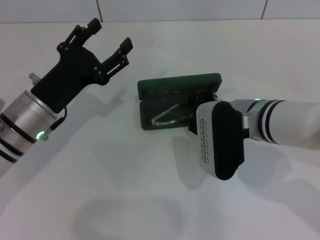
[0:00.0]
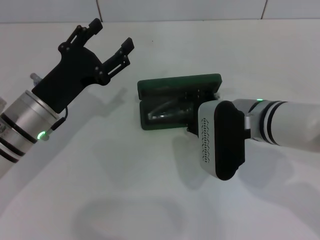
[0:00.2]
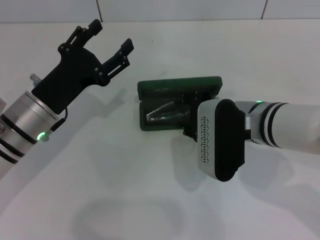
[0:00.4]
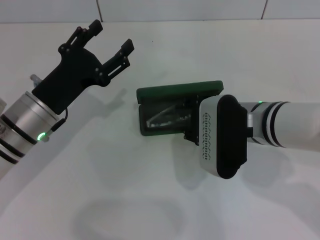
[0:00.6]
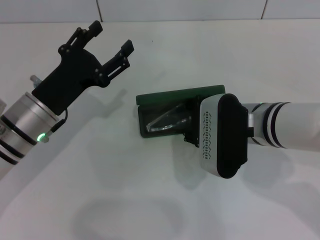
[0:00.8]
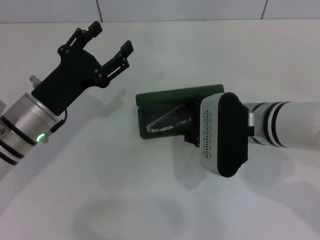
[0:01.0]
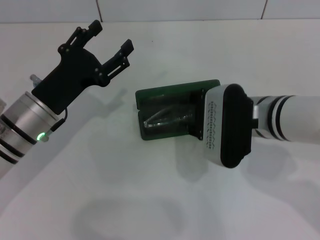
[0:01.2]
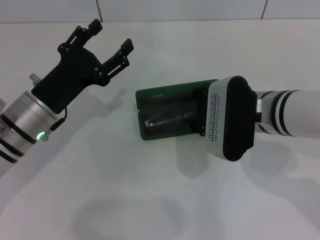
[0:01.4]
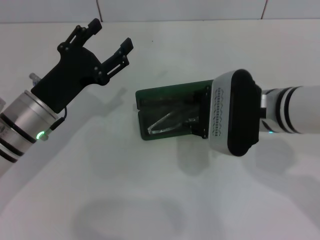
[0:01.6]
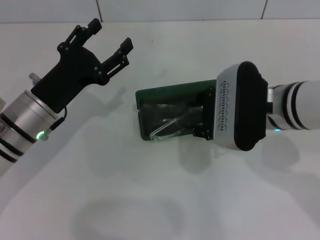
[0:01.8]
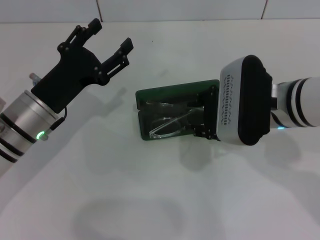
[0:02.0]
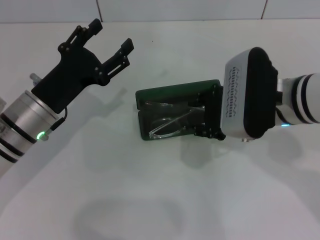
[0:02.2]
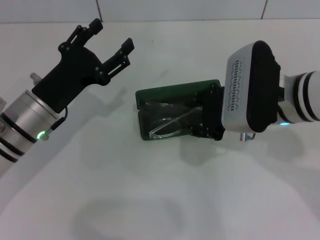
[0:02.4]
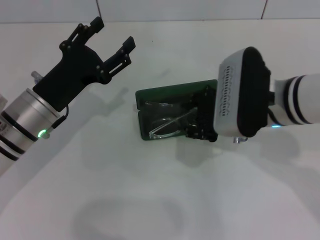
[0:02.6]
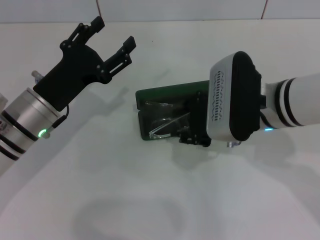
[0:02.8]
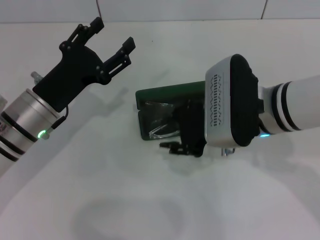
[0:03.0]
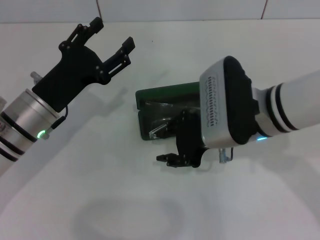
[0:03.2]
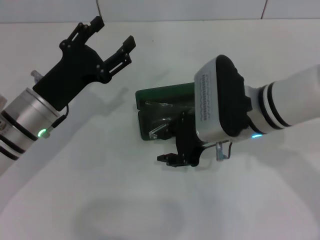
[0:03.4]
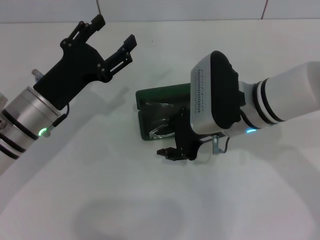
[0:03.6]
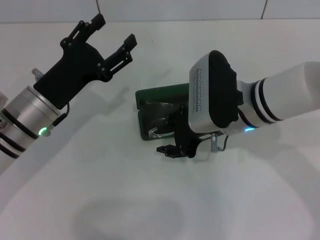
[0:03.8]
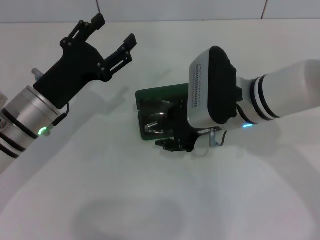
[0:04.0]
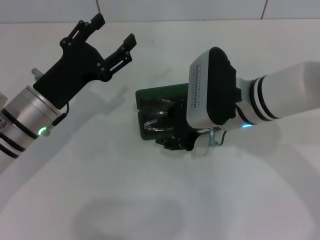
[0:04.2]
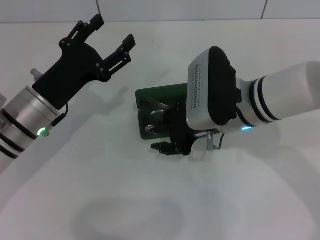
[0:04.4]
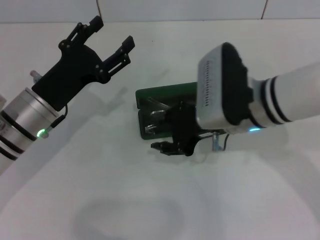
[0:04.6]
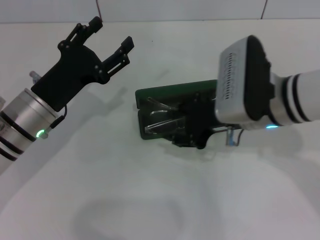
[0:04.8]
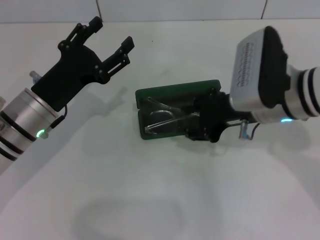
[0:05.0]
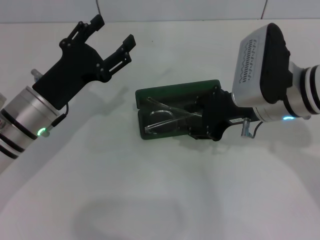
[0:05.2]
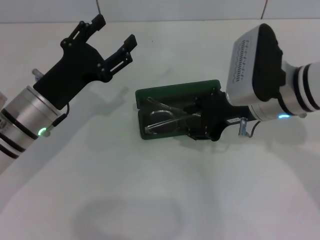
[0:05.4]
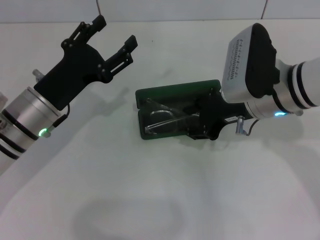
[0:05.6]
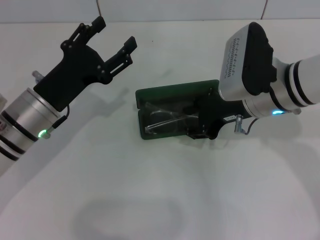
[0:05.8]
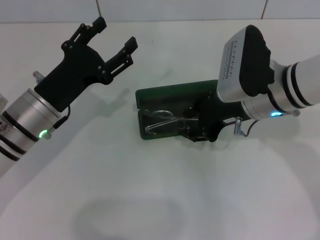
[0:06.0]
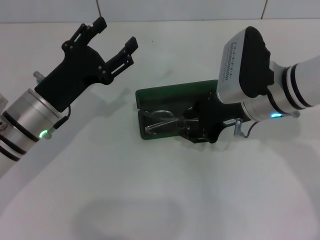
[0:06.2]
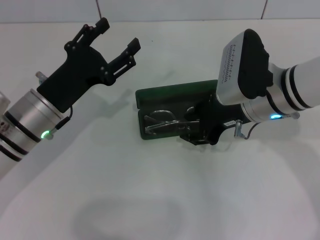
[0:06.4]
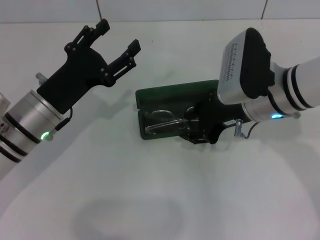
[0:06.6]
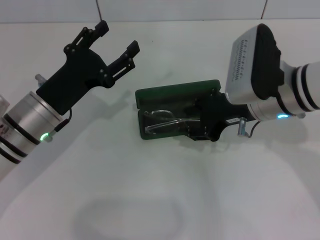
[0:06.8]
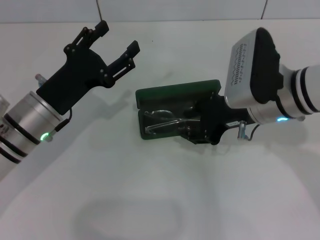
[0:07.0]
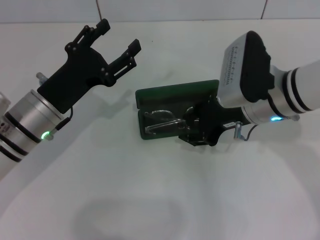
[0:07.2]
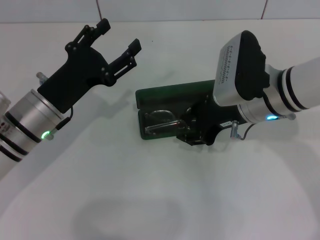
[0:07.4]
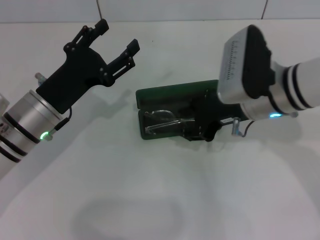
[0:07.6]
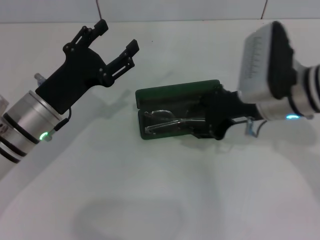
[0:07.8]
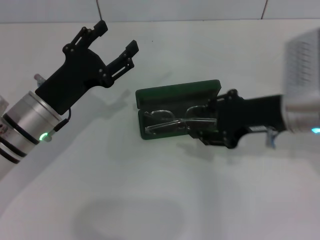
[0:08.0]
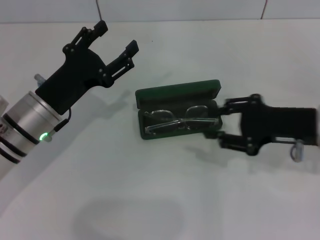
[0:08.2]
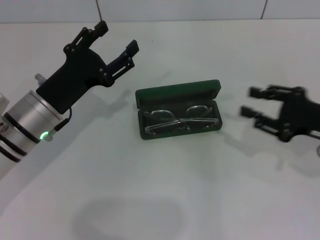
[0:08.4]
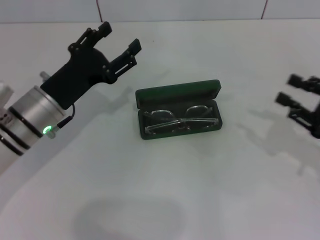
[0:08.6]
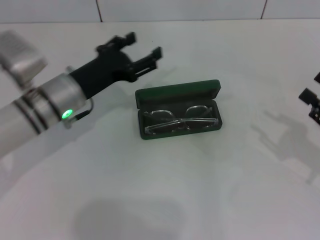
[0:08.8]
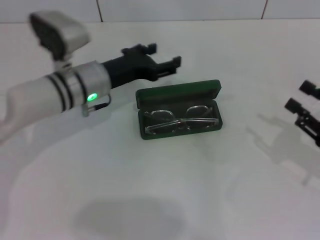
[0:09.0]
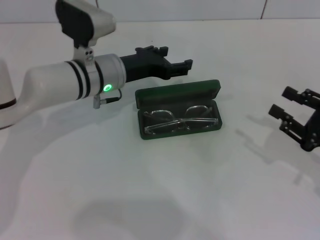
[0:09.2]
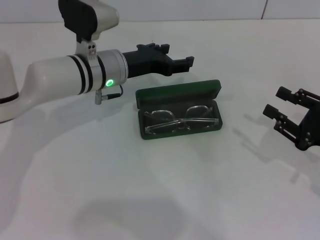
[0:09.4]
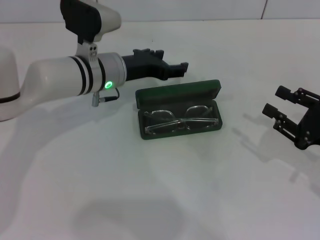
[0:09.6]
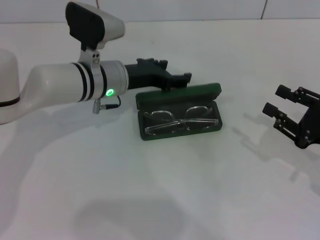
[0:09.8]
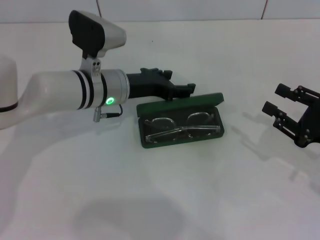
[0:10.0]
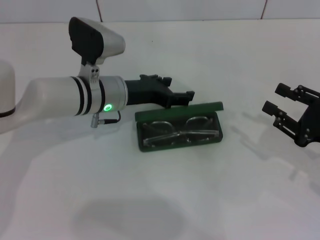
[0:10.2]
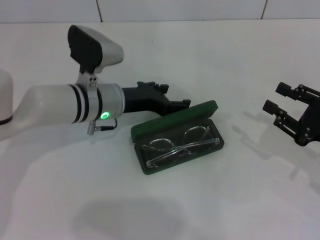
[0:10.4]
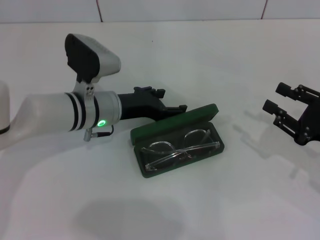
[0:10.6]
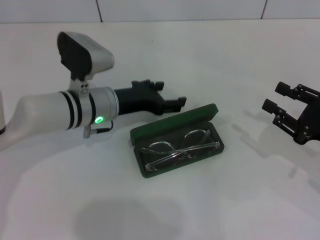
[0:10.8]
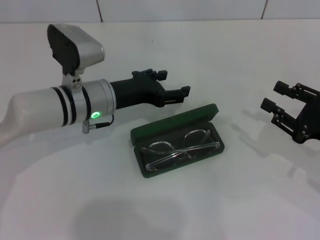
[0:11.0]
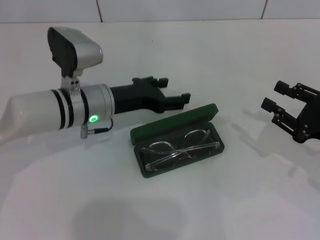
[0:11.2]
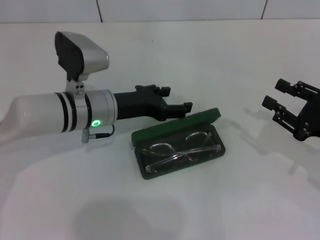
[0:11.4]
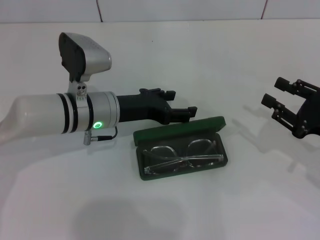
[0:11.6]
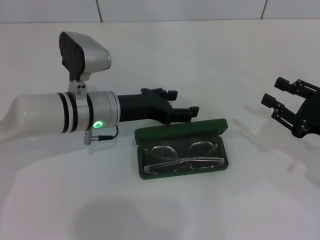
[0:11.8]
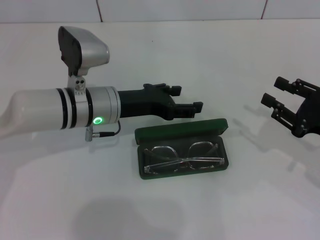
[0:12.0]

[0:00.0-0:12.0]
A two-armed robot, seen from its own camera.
Step, 0:00.0 to 0:07.8: Put the glasses into the case with your right hand.
0:00.0 to 0:01.6: The grippers stay close to where they were, moving slightly.
0:01.6 to 0:03.0: There are only small adjustments of the grippers.
0:03.0 to 0:07.6: The grippers move only a little.
0:07.6 to 0:09.0: The left gripper is displaced forward and to the right by about 10 cm. The right gripper moves to the right and backward, about 20 cm.
0:10.4 to 0:12.0: There are only small adjustments of the grippers.

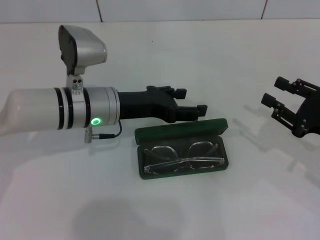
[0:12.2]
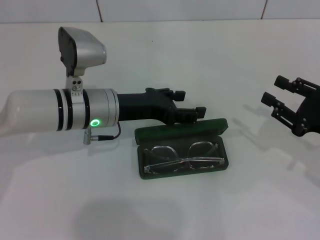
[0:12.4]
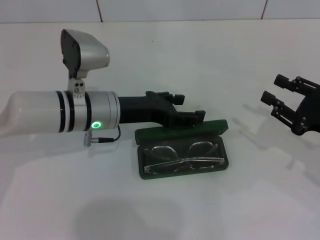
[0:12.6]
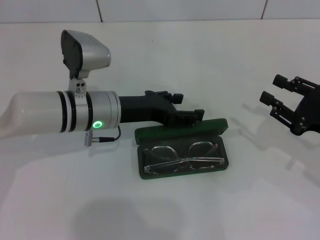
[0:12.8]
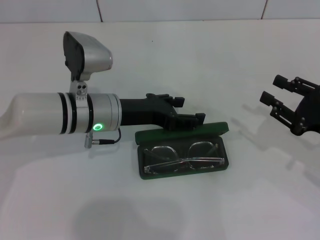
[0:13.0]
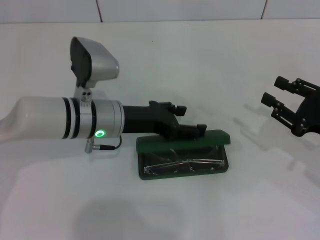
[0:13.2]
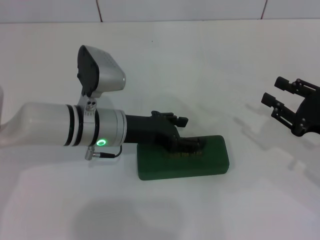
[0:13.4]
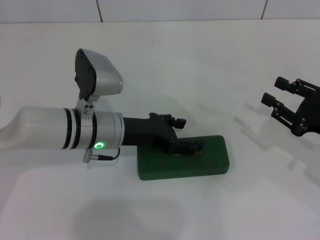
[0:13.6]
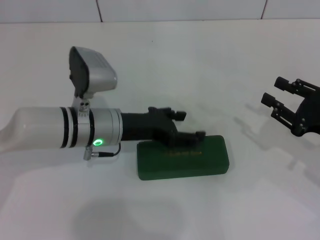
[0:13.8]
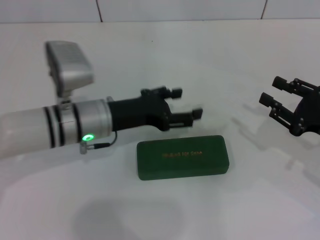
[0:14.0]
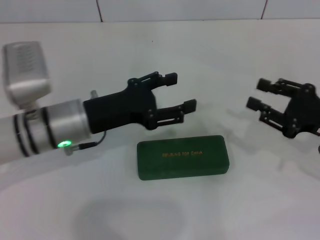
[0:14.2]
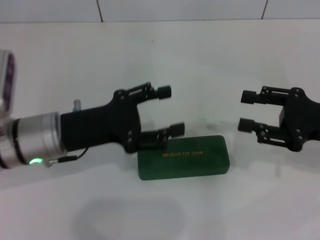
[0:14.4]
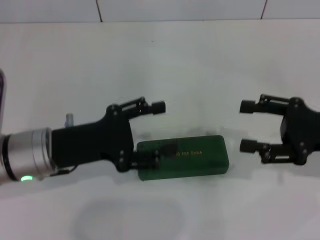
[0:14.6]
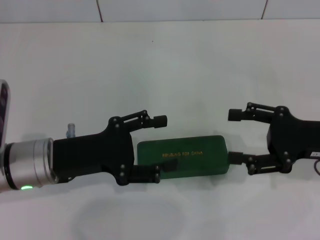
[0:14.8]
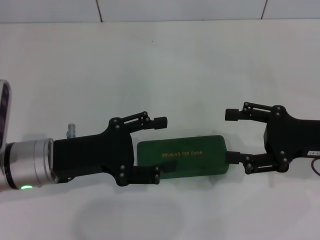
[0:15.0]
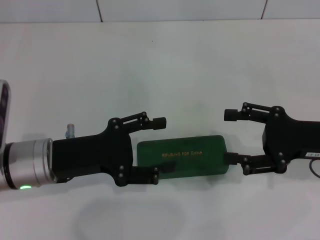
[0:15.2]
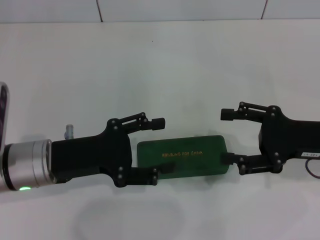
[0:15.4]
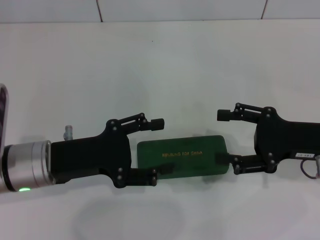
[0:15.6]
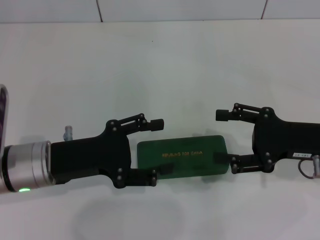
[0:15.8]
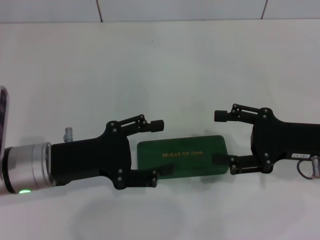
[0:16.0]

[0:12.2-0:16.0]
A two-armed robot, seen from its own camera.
0:12.2 to 0:13.4: The grippers make only small movements.
0:13.4 to 0:14.8: The right gripper moves about 5 cm, and opens up. Meanwhile the left gripper heads to the left and backward, covering roughly 10 cm.
0:14.8 to 0:16.0: The grippers make only small movements.

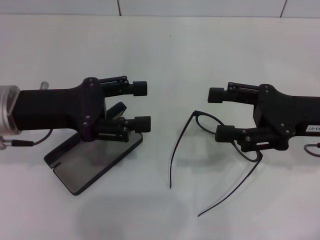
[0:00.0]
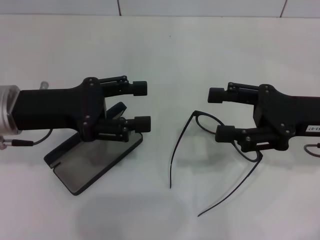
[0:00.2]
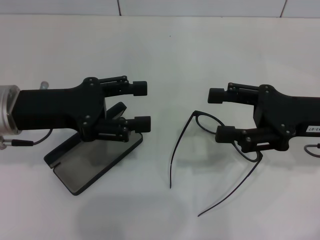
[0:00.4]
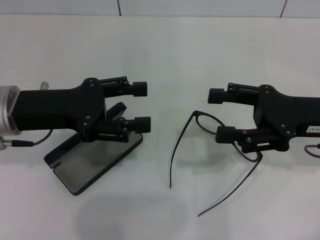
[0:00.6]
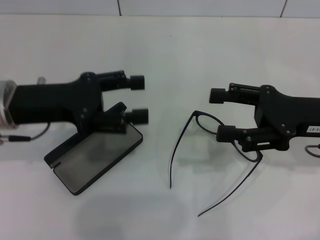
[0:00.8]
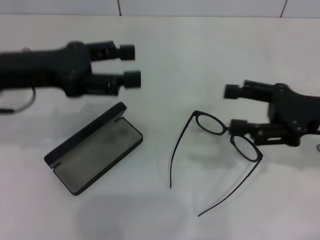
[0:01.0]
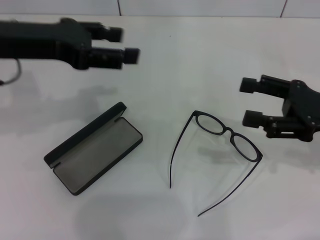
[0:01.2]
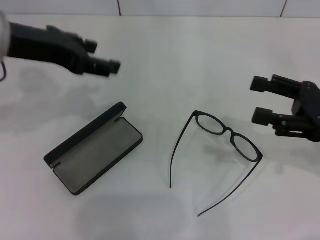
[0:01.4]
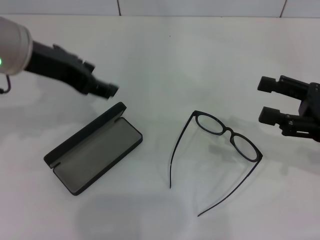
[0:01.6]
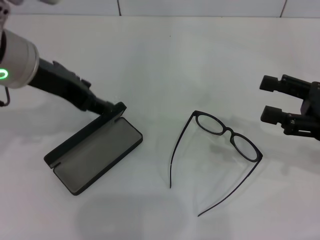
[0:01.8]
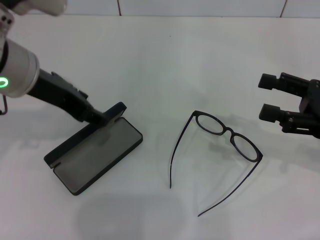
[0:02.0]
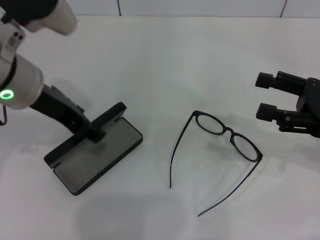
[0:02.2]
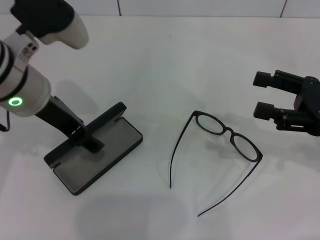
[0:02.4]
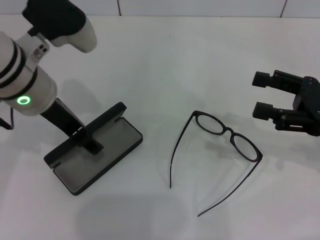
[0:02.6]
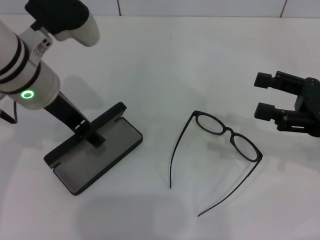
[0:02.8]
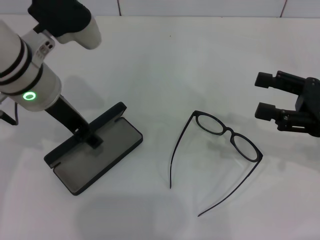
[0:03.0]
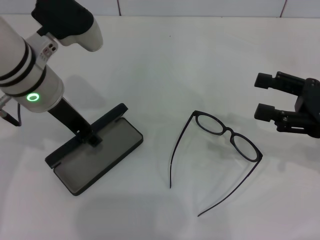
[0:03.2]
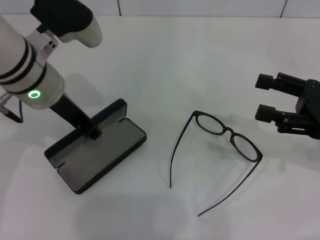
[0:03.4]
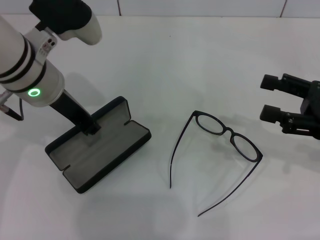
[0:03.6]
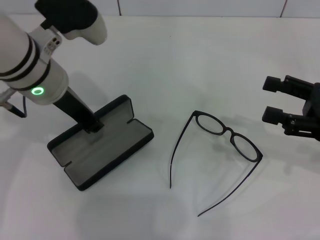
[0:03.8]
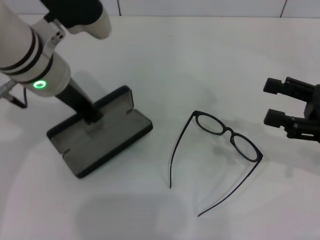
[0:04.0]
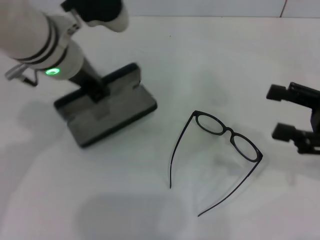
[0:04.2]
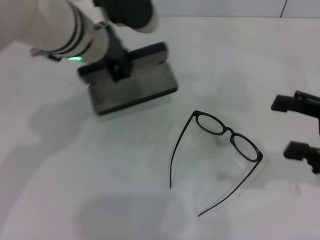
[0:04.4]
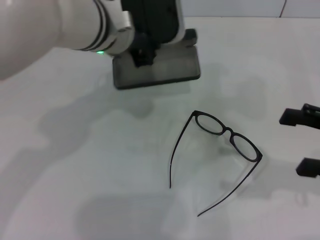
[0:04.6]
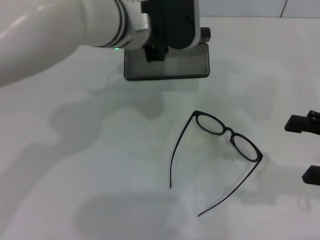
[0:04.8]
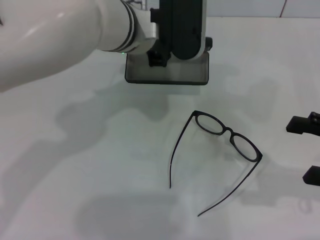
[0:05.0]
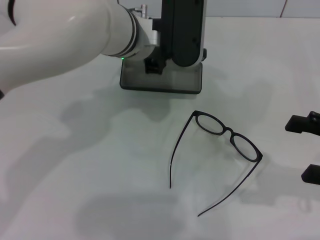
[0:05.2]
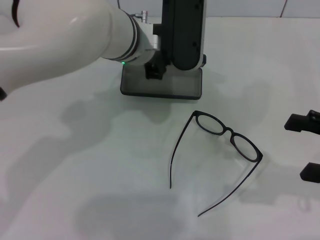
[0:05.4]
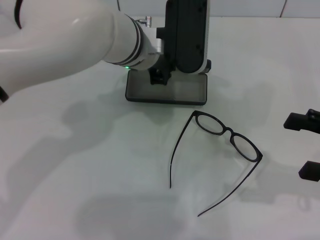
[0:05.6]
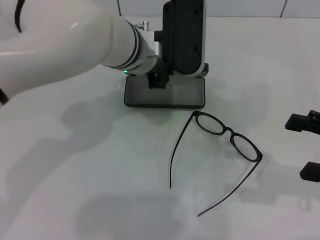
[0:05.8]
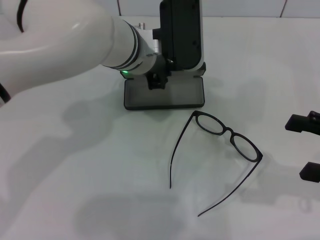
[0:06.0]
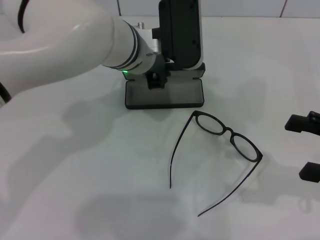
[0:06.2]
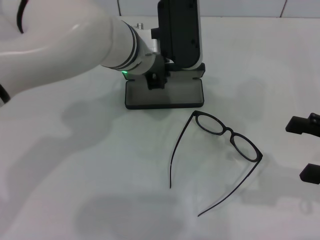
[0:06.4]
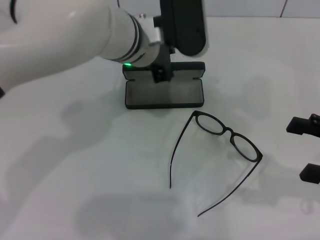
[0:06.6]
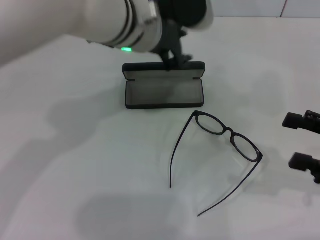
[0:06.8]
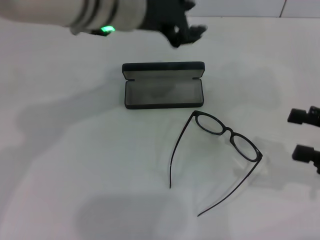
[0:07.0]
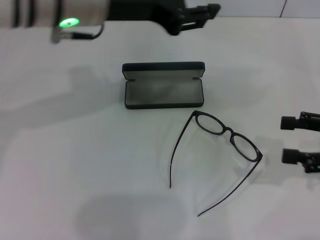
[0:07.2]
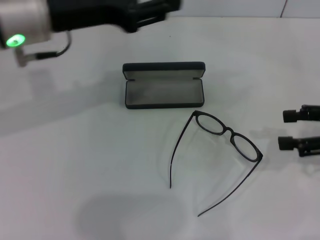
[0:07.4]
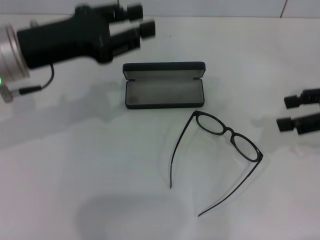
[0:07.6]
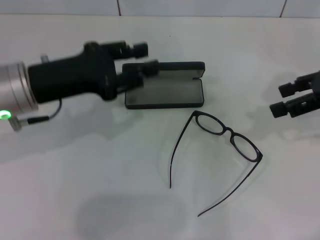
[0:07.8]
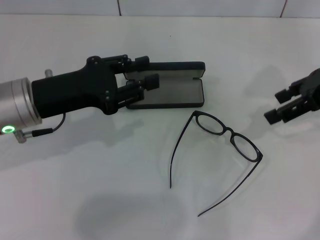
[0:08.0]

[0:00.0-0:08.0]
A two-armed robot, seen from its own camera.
Step, 0:00.0 to 0:03.2: Grab the glasses case with your left hand.
Step, 0:03.4 to 0:06.2: Place the glasses case in the center of the table with your left hand.
0:00.0 to 0:01.6: The right gripper is displaced to the right by about 5 cm. Meanwhile the left gripper moves upward, approximately 10 cm.
0:01.6 to 0:03.2: The left gripper shifts approximately 5 cm downward.
0:03.2 to 0:04.8: The right gripper is displaced backward by roughly 5 cm. The left gripper moves to the right, approximately 10 cm, and closes.
0:04.8 to 0:06.4: The grippers move only a little.
0:06.4 to 0:08.0: The right gripper is displaced forward and upward by roughly 15 cm. Meanwhile the left gripper shifts approximately 20 cm to the left and backward.
